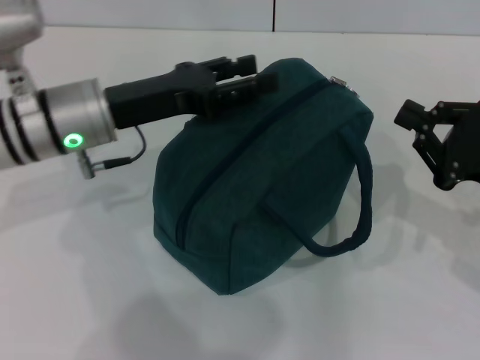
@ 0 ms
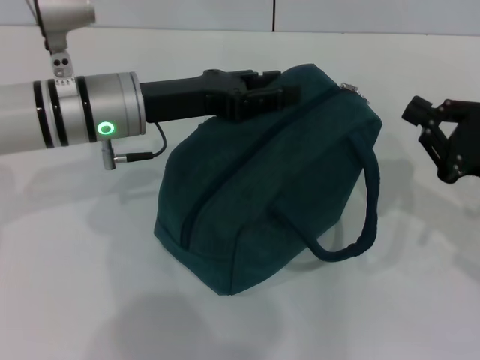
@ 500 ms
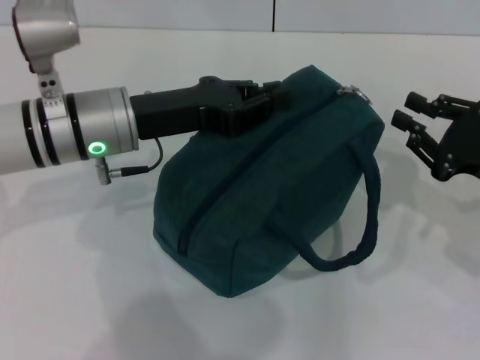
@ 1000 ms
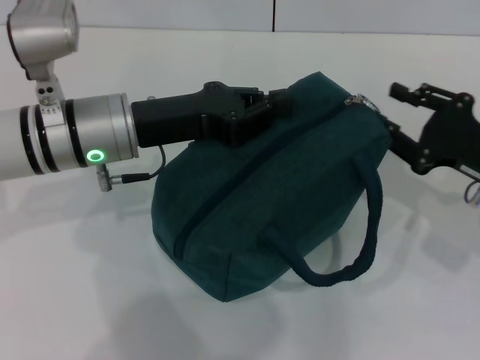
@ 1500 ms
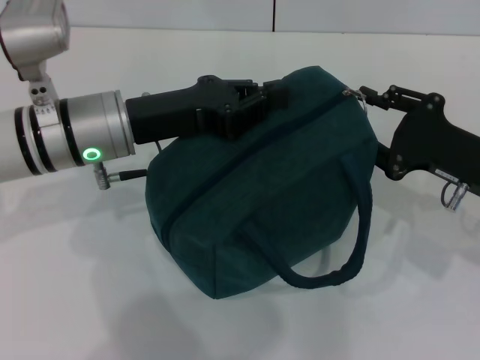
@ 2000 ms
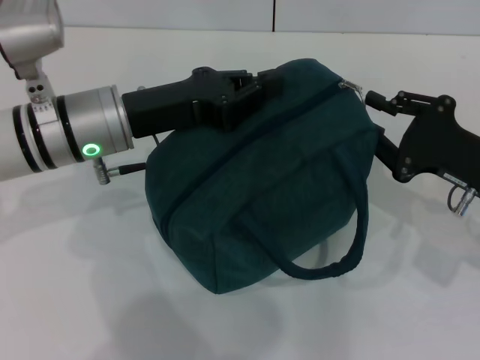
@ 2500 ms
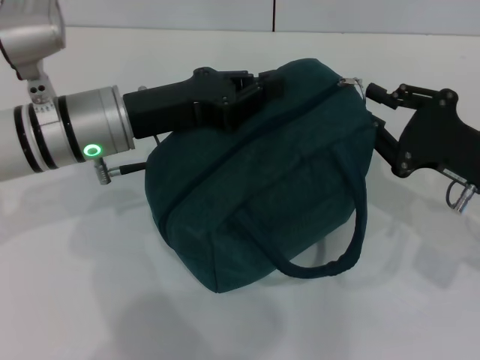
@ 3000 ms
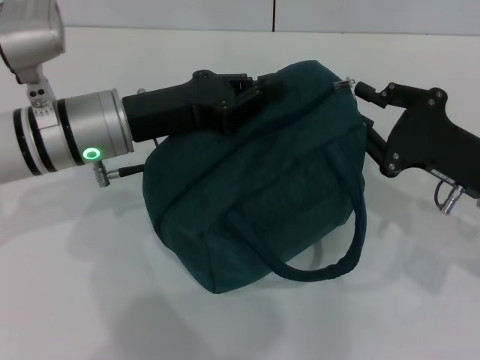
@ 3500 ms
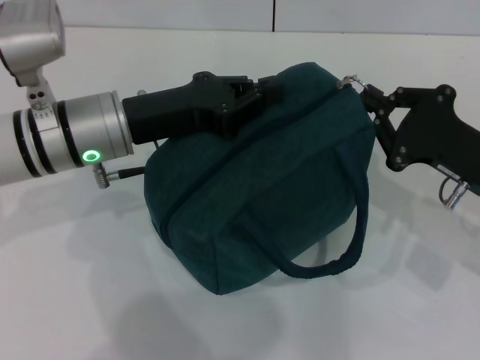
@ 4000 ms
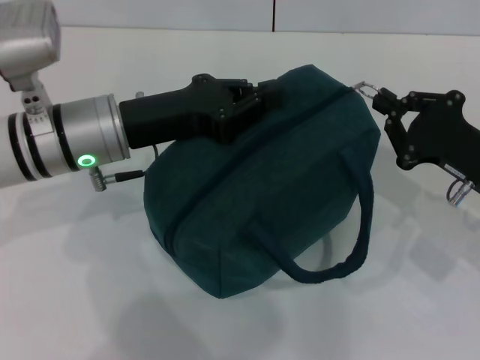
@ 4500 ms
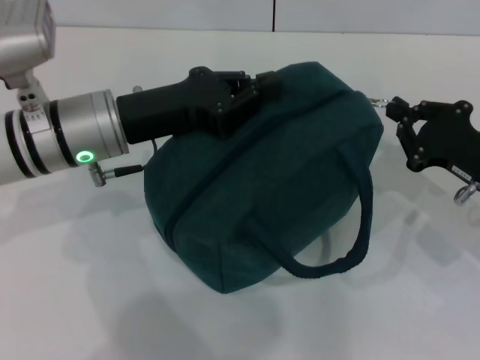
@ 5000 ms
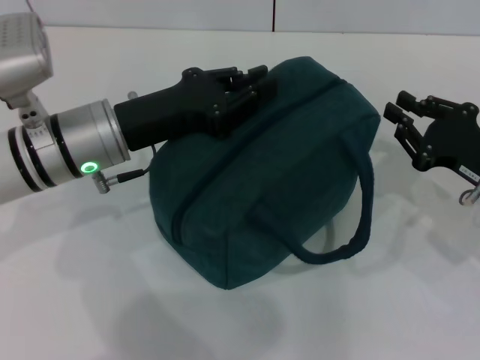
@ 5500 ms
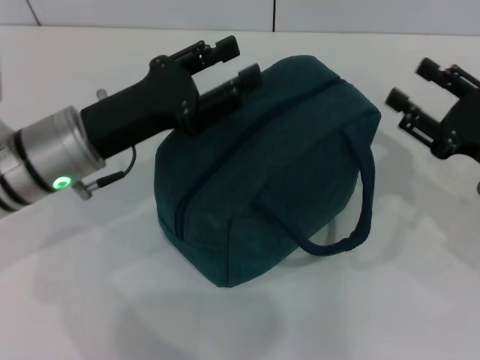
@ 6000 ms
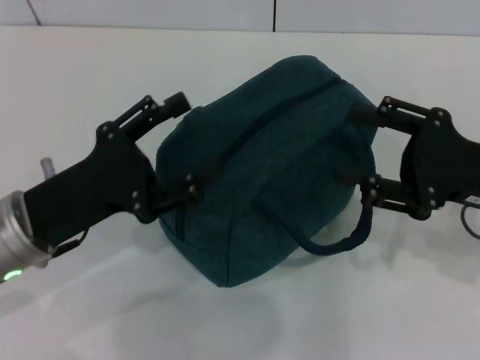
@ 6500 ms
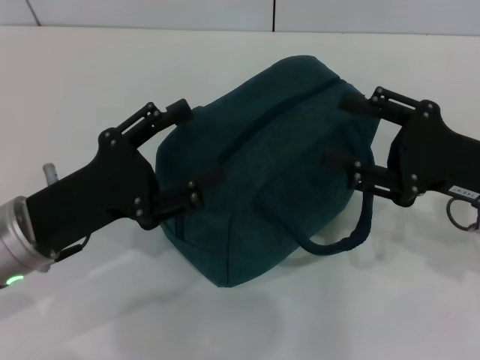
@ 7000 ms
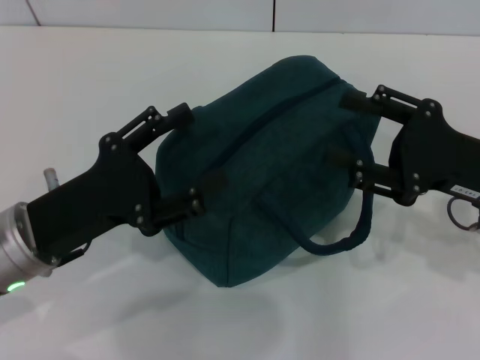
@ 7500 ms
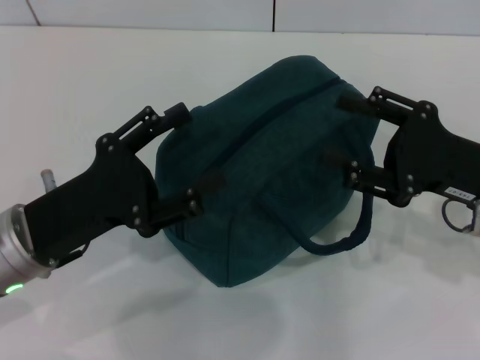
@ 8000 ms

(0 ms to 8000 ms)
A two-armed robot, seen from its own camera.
Step, 0 ms - 5000 ms: Zip up the lunch bag with your right hand.
0 ms - 2000 ms: The left gripper closes up, while the right gripper opens up.
2000 ms - 4000 ms: The right gripper closes its fingers.
4000 ms - 6000 ms: The right gripper opens up, while the left gripper opens its fingers.
6000 ms - 8000 ms: The left gripper moves backward, some 10 cm, and opens its fingers. The right gripper shifts by about 5 cm.
